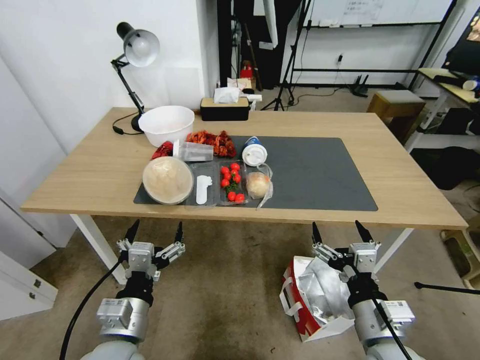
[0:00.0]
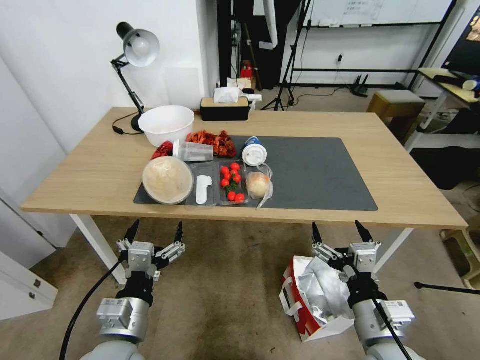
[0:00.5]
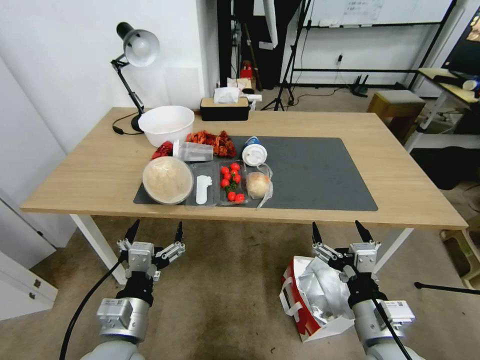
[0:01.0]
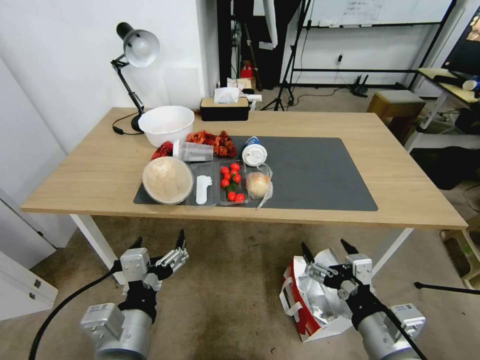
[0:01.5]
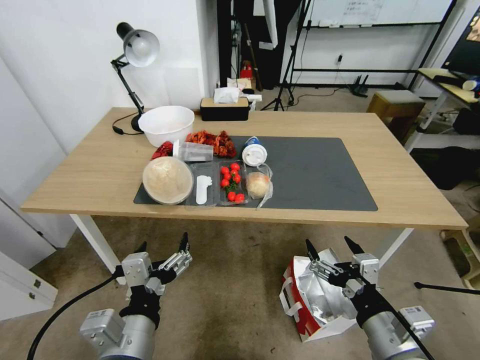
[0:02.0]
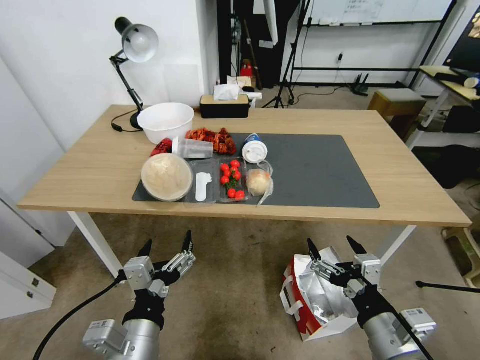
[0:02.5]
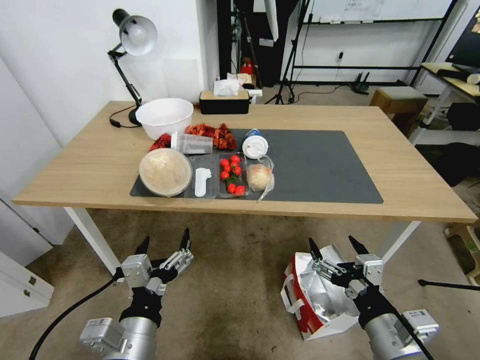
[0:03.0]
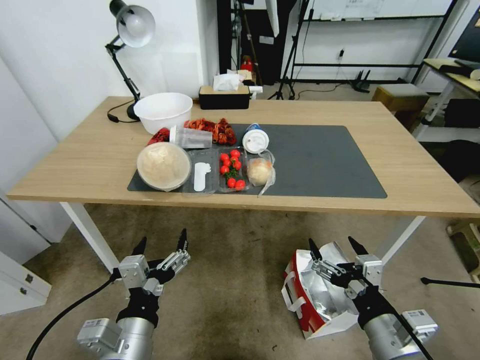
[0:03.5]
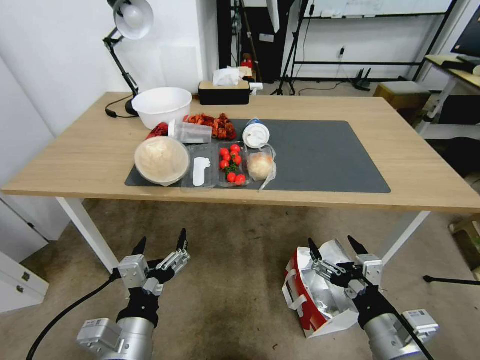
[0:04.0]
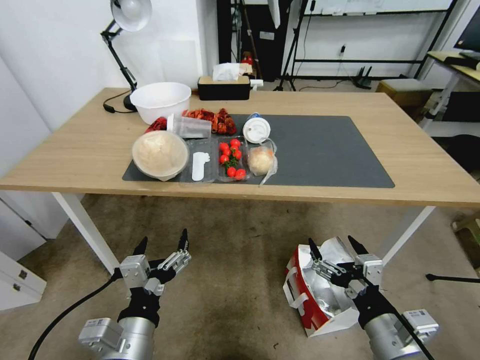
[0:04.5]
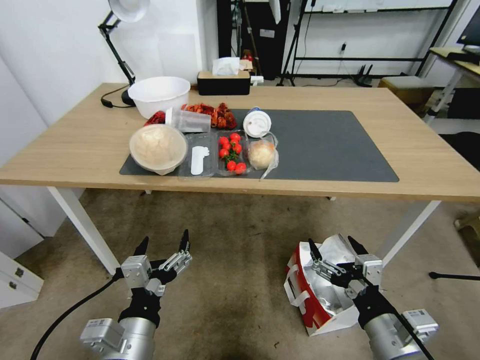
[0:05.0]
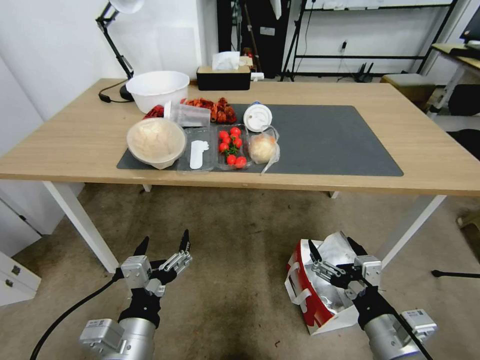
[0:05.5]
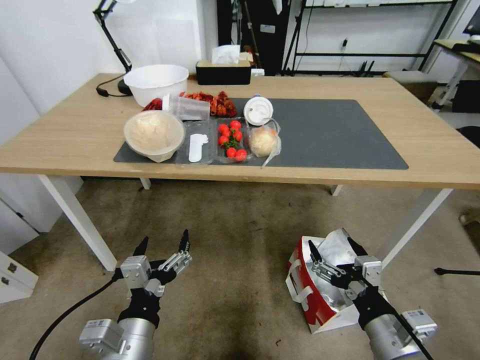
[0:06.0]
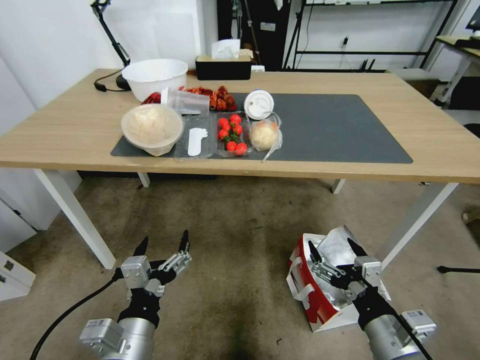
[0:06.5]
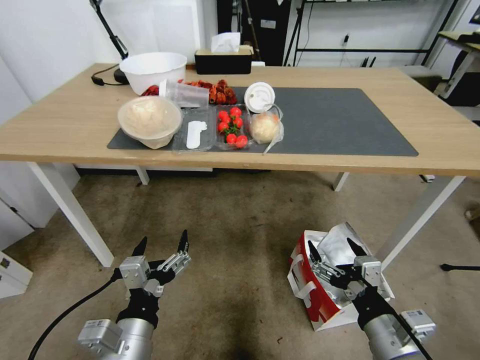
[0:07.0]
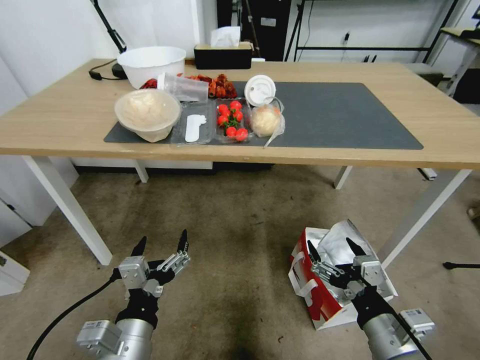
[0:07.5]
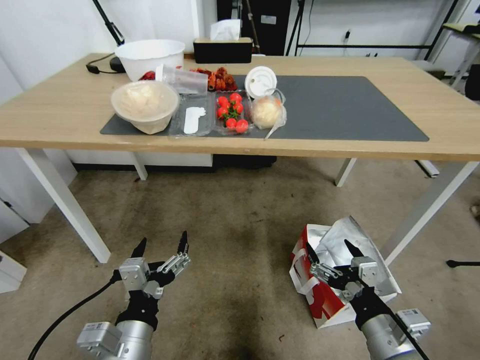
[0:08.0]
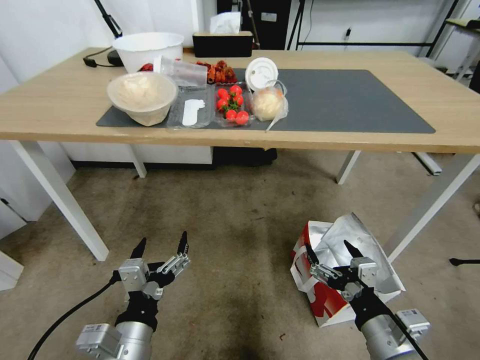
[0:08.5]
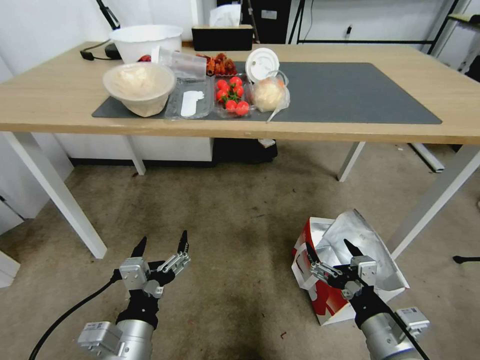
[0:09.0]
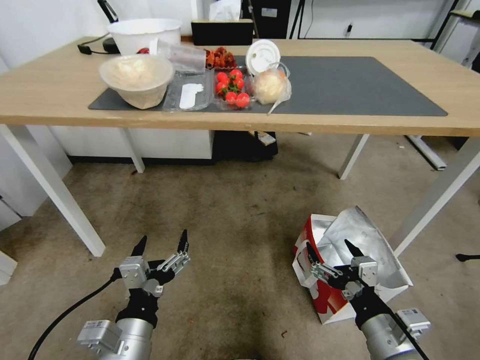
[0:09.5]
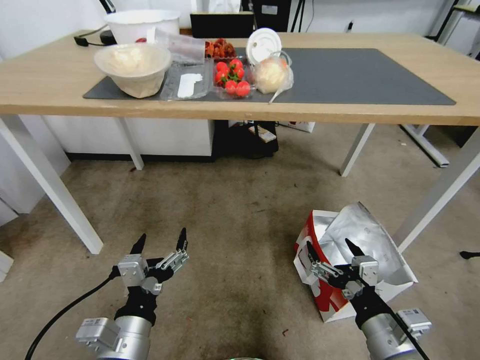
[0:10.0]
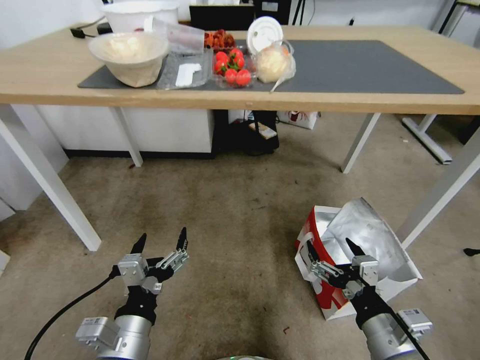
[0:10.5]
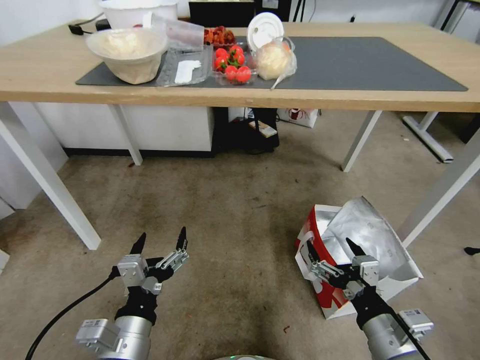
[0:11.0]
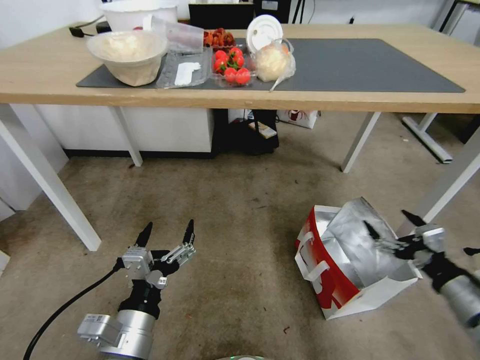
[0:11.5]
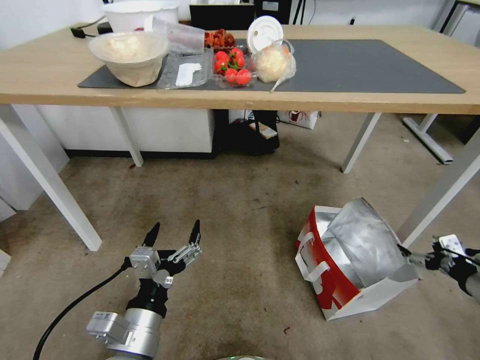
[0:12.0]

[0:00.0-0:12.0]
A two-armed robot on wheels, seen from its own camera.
Task of the whole recording: Pick up the food delivery bag from the floor and place it on the table.
0:10.0 to 0:12.0: The right gripper moves to the right, approximately 25 cm.

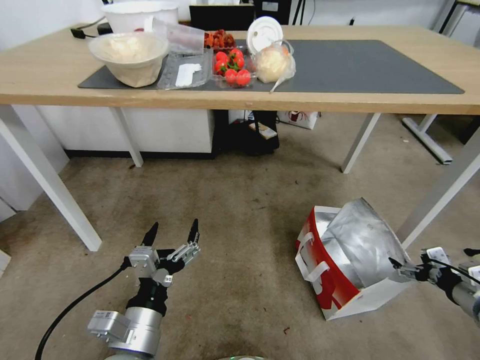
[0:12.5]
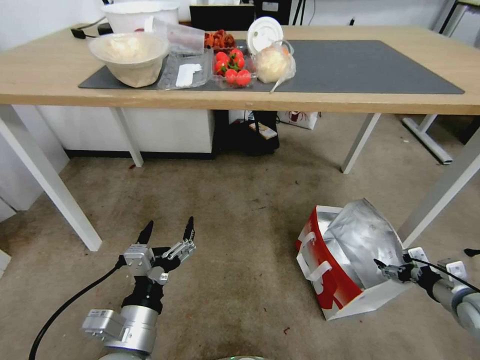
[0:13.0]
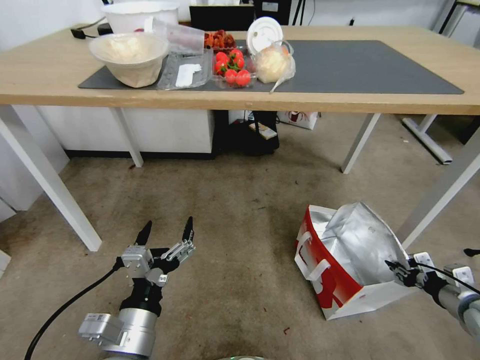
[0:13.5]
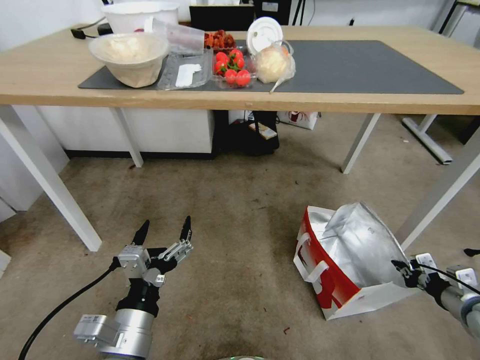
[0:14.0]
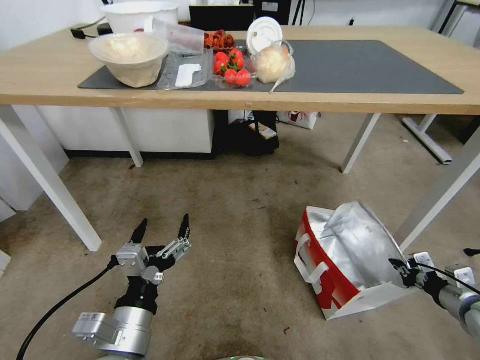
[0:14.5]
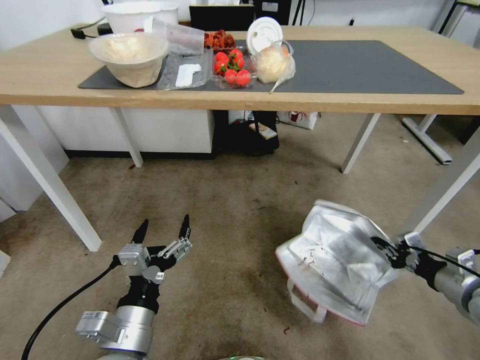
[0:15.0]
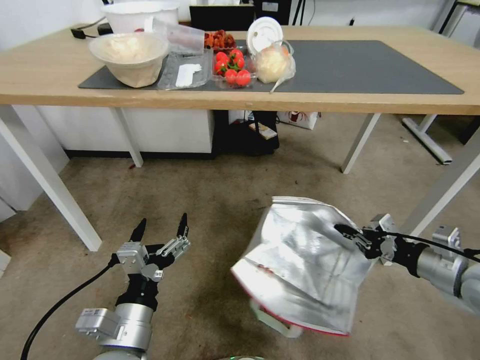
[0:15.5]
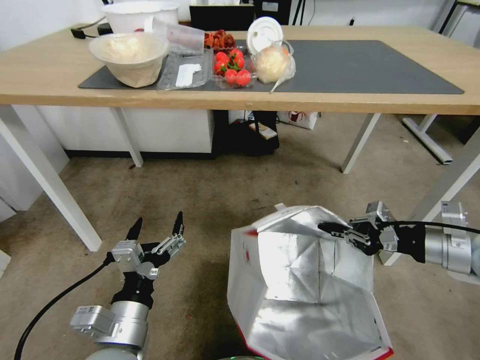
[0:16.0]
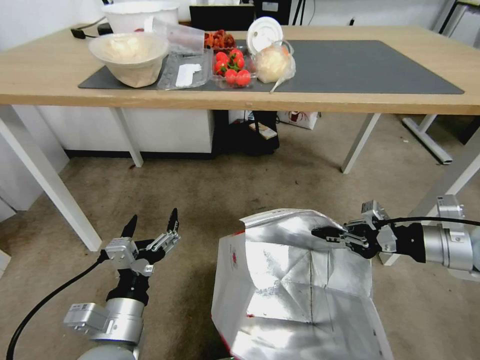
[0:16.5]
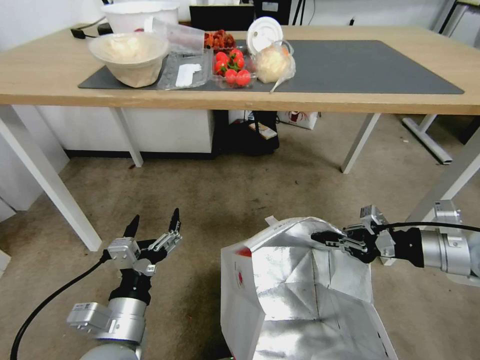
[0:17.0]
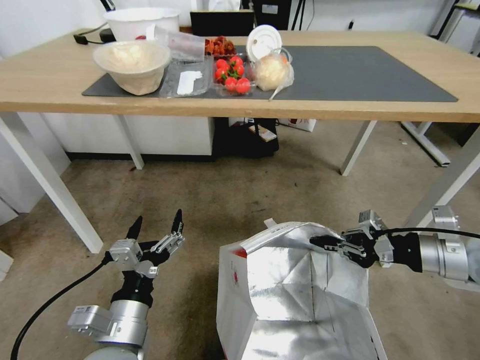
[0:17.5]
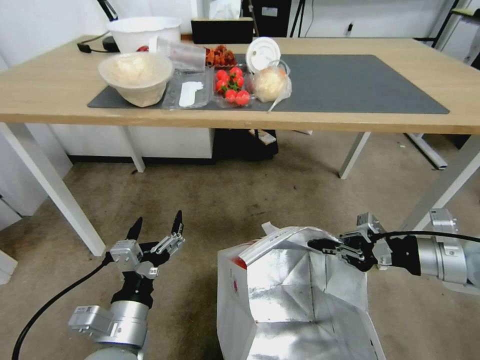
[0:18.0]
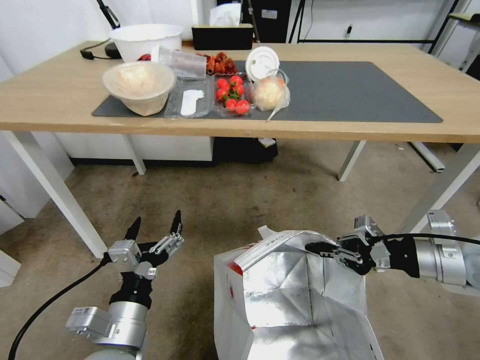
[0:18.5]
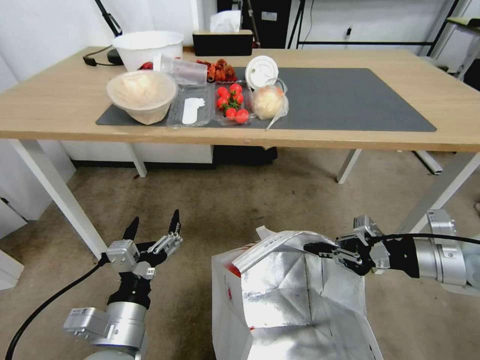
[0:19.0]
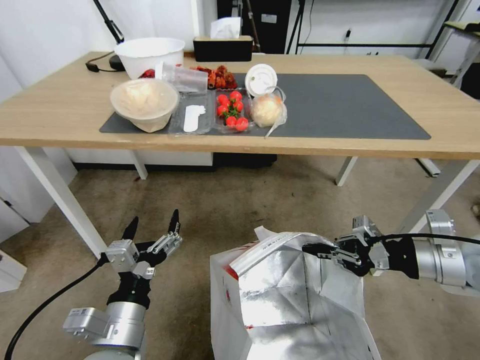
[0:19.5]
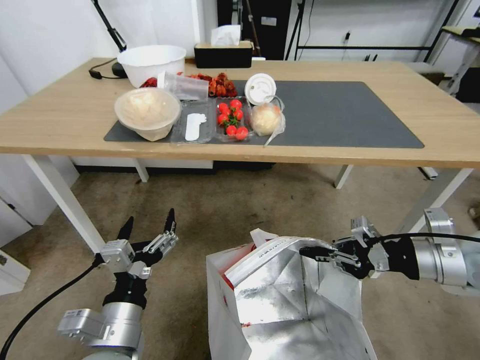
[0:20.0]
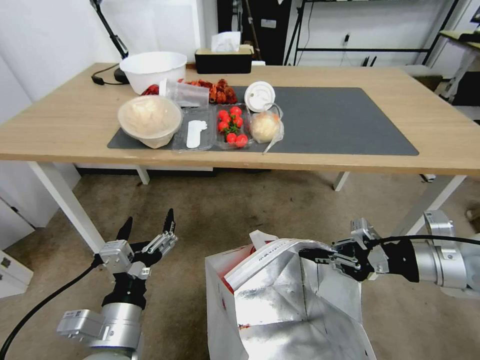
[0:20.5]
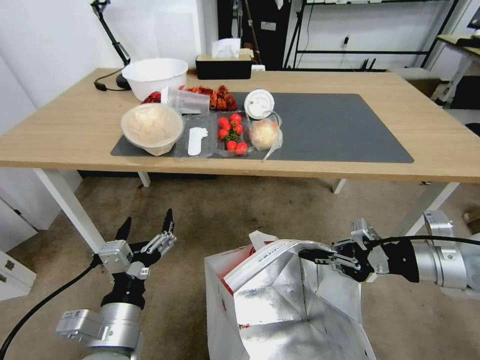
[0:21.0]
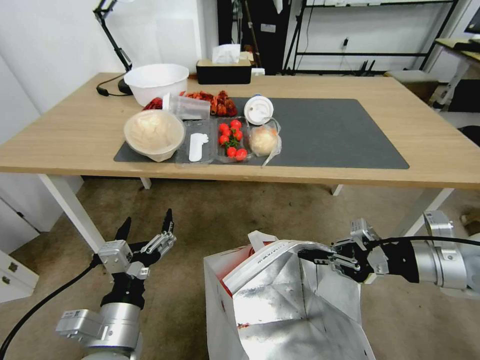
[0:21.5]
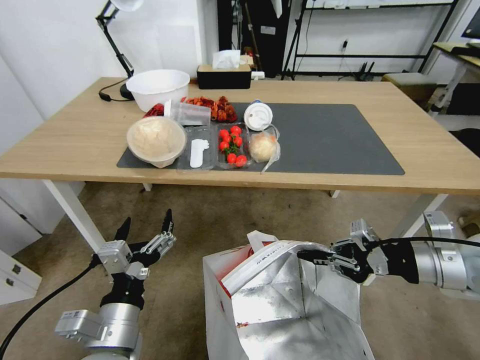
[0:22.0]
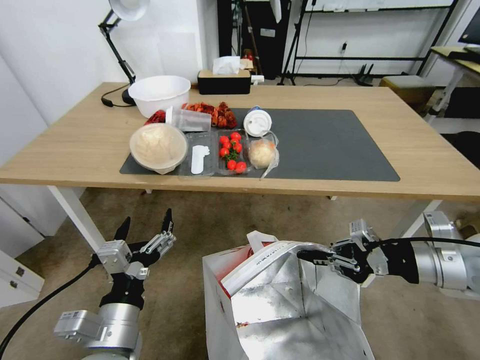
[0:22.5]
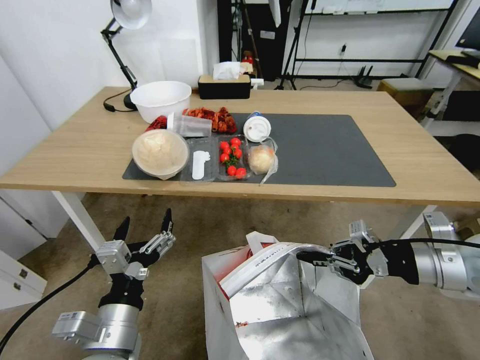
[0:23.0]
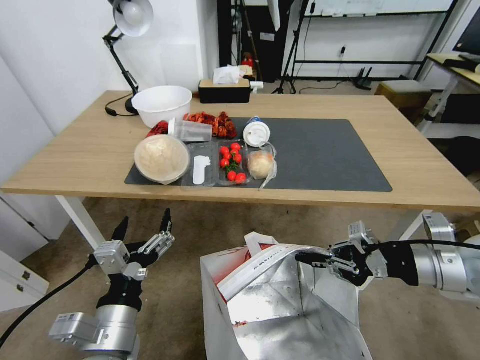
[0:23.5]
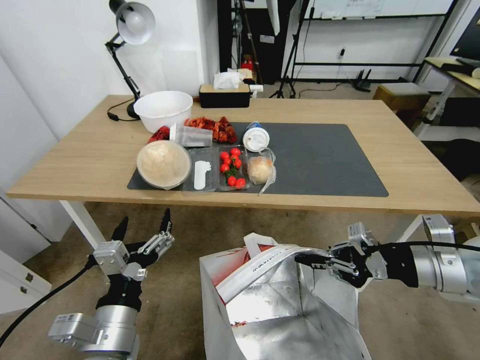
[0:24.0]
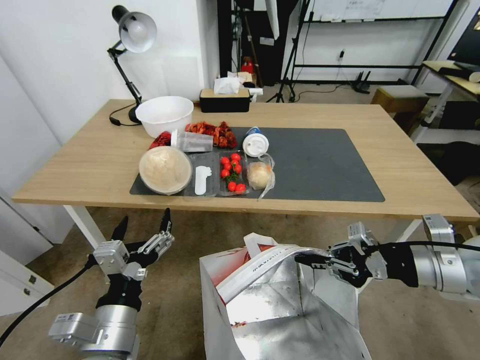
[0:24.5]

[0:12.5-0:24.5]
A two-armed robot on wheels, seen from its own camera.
Task of the whole recording: Pick up the food delivery bag from the floor and place it on the table.
0:12.5 to 0:14.5: The right gripper closes up.
0:14.5 to 0:16.5: The right gripper shifts approximately 25 cm upward and to the left.

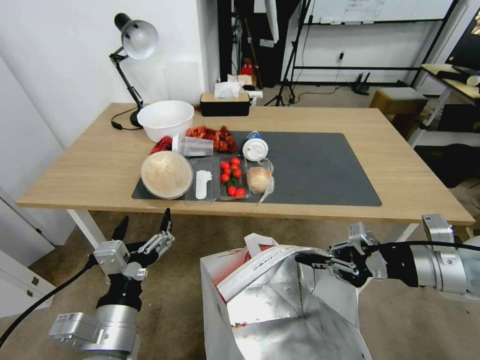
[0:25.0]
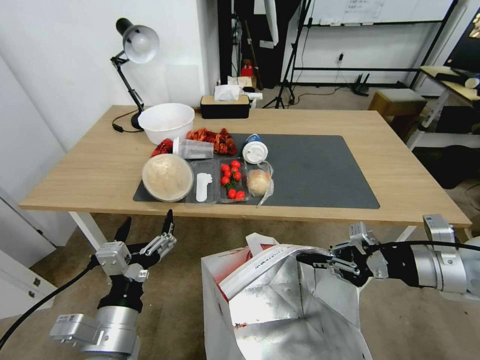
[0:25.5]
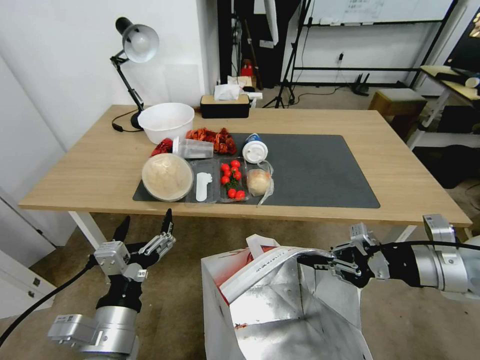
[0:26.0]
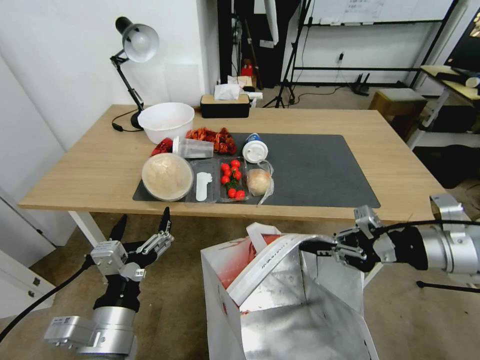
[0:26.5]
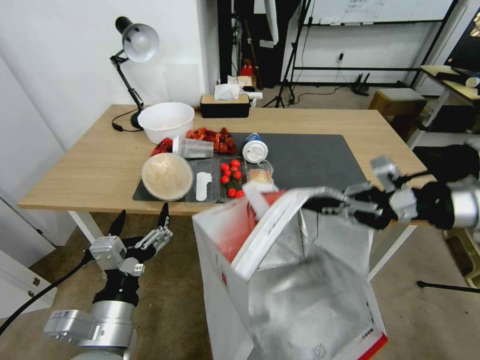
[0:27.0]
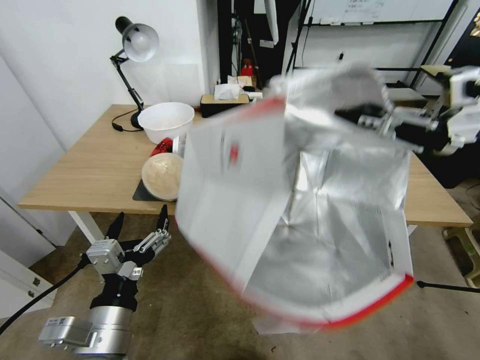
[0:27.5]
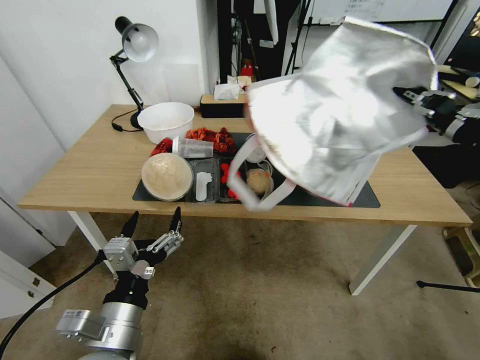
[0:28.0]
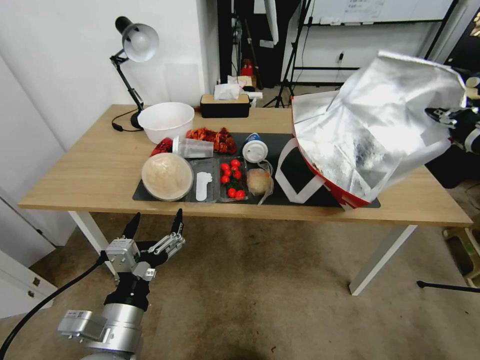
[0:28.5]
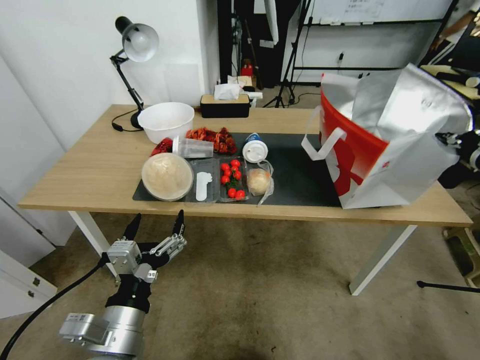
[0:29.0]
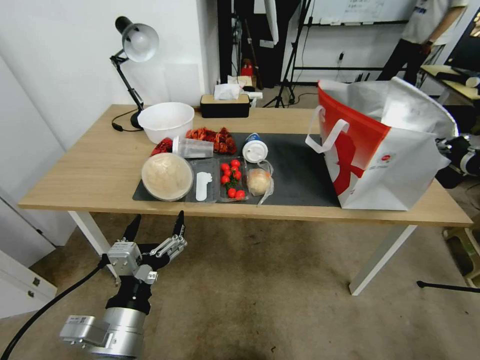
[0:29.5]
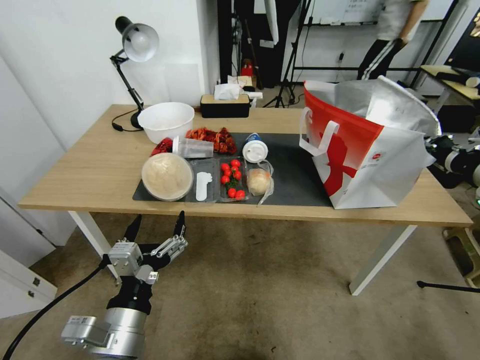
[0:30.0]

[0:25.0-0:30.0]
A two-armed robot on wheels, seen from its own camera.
Task of the whole recording: Pick up the food delivery bag from the floor and place it on the table.
0:25.0 to 0:27.5: The right gripper travels upward by some 15 cm.
0:27.5 to 0:30.0: The right gripper goes approximately 10 cm downward.
